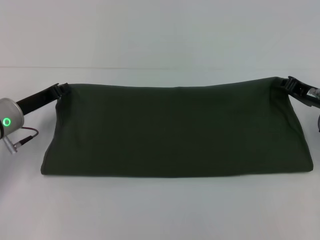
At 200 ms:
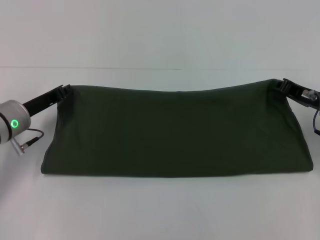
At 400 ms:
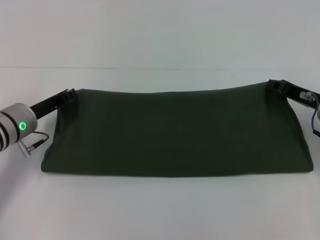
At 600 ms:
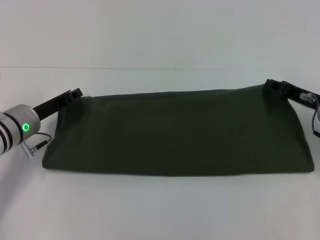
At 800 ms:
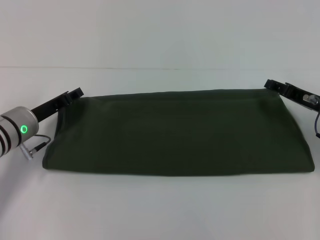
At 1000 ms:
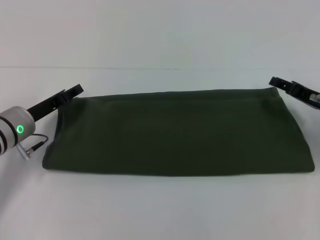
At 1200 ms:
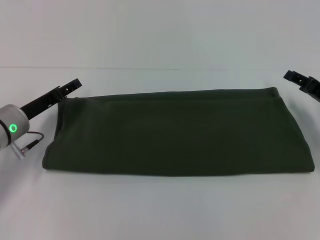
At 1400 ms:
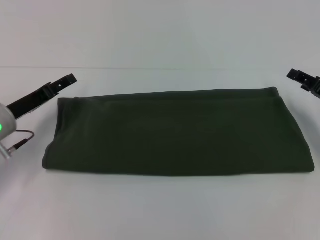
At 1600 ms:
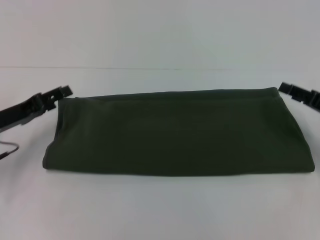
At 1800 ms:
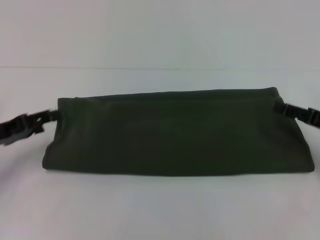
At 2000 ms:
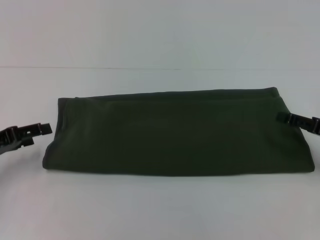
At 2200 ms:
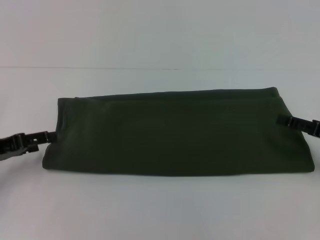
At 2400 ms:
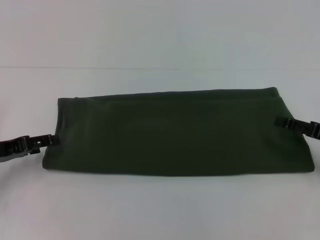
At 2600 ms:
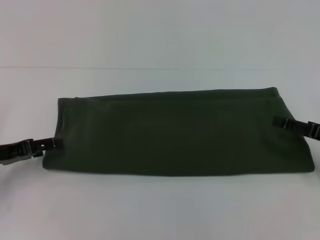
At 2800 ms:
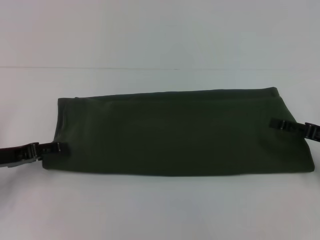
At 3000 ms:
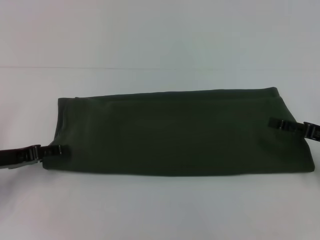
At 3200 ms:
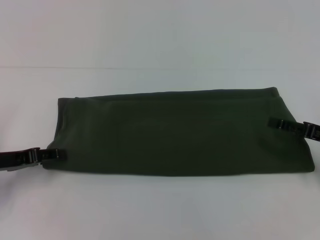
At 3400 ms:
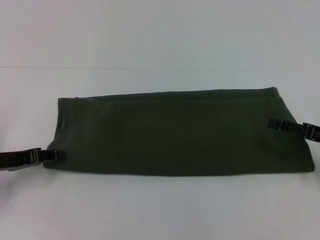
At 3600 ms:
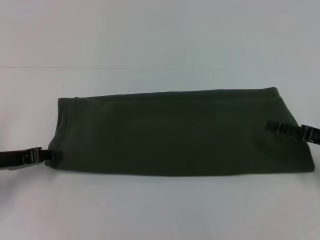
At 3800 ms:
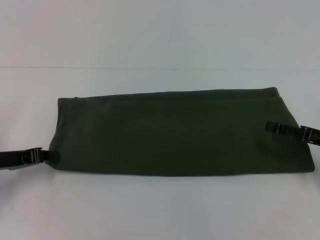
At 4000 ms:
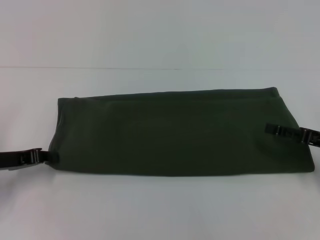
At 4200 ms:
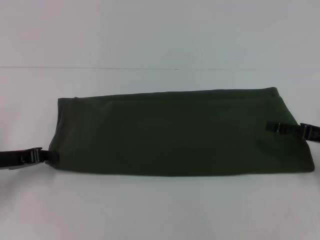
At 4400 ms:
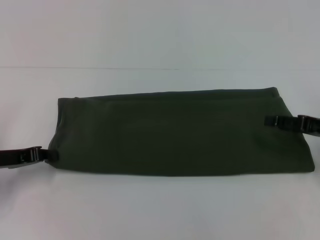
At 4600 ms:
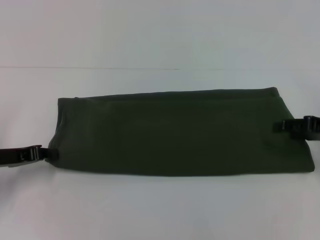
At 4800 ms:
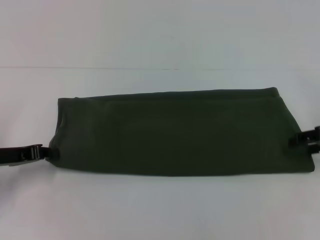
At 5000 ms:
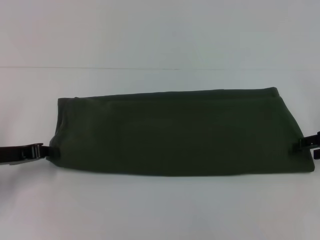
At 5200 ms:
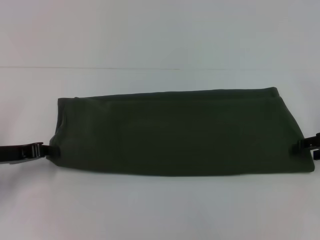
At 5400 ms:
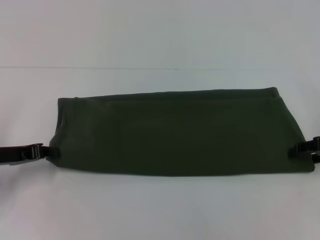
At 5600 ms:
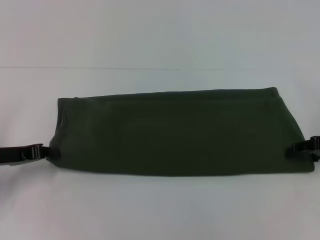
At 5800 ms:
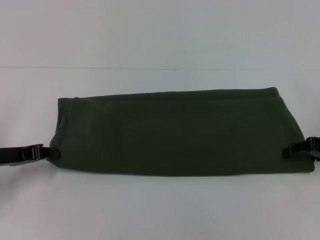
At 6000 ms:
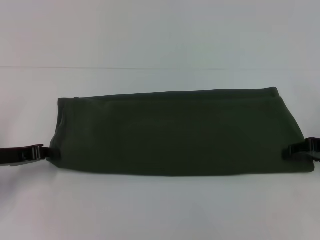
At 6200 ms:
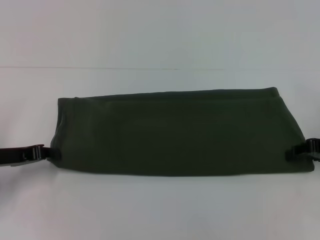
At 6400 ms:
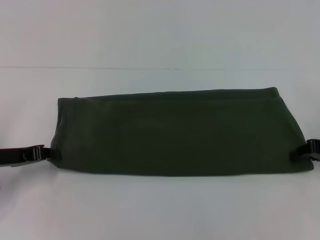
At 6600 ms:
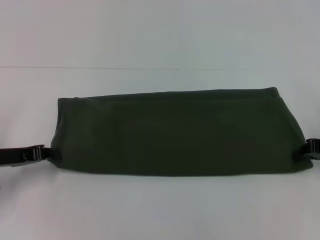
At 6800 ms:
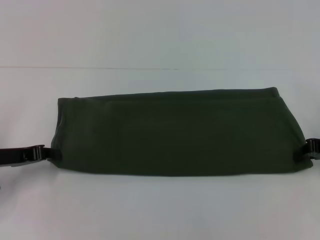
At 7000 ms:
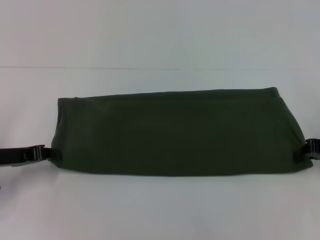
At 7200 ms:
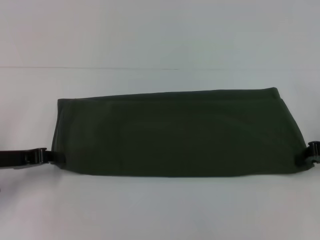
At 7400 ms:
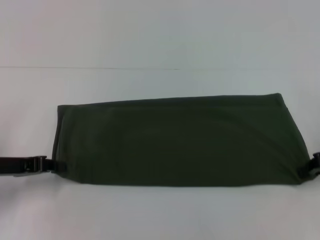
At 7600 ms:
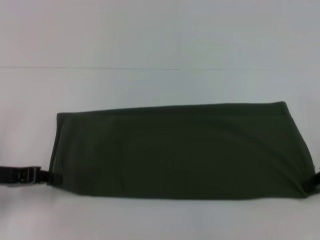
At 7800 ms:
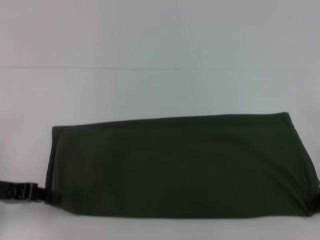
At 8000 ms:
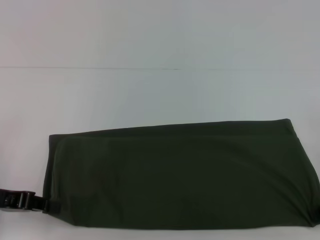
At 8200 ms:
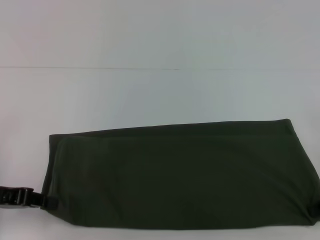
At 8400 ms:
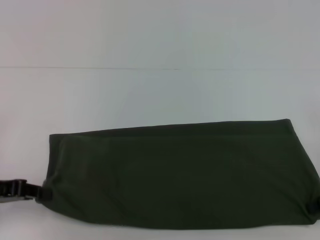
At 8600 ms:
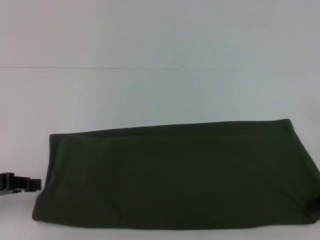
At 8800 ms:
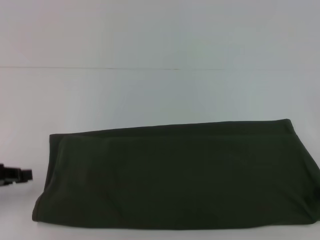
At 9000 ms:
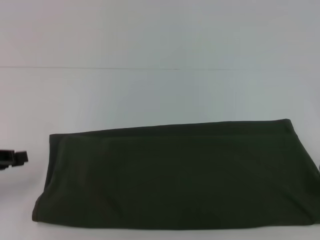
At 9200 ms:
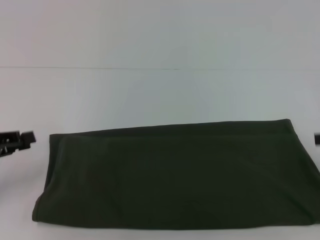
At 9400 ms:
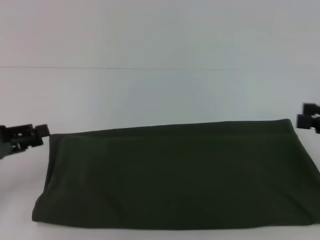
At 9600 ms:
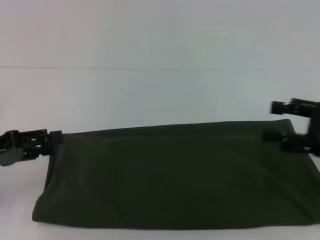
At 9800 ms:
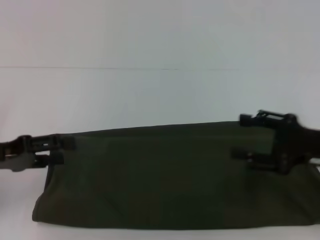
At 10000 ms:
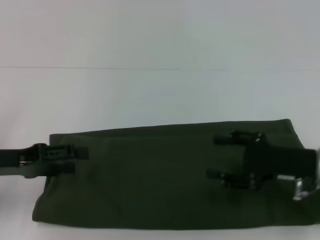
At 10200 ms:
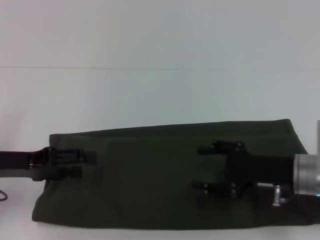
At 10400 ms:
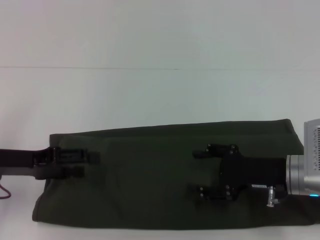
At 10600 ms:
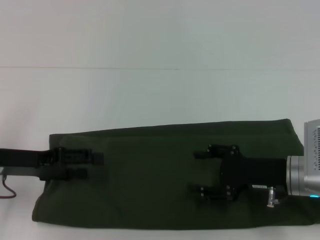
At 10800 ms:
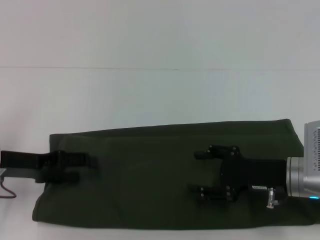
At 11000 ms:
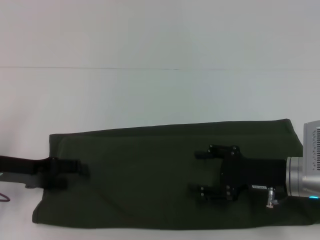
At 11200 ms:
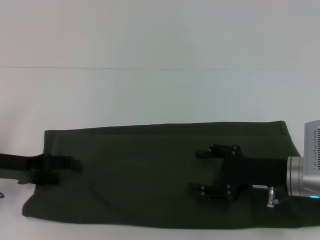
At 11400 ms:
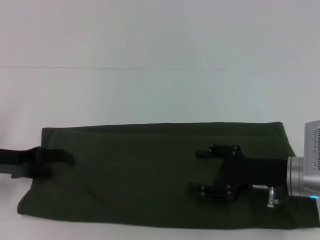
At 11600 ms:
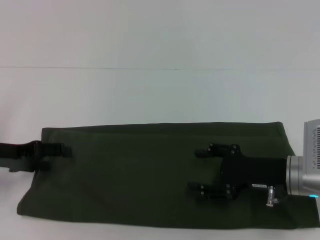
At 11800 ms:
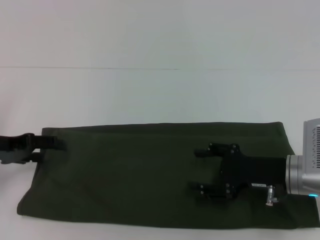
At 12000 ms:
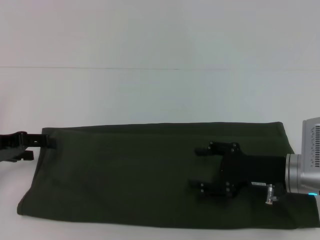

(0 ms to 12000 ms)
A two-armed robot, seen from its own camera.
Step, 1000 ms - 8800 ms: Pull the clothes with your left hand.
Step, 1000 ms - 8800 ms: Pull the clothes with your right hand.
0 ms - 1600 ms: The right gripper moves approximately 5 cm, and opens up. Meanwhile the left gripper ends up roughly 5 cm from where it was, and opens its fingers.
6000 ms - 7600 ms: The right gripper closes up.
7600 ms - 9000 ms: The right gripper shifts by roughly 5 cm, and opens. The left gripper changes place by some 5 cm.
9000 ms - 10400 ms: The left gripper heads to the right, covering roughly 5 cm, and opens up. Meanwhile the right gripper goes some 20 cm to the left and downward.
10400 ms - 12000 ms: The left gripper moves roughly 5 cm.

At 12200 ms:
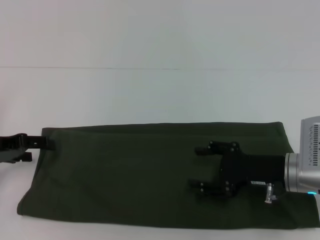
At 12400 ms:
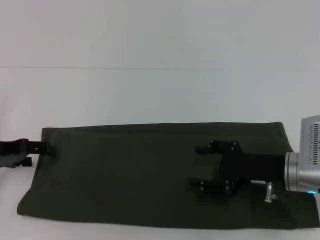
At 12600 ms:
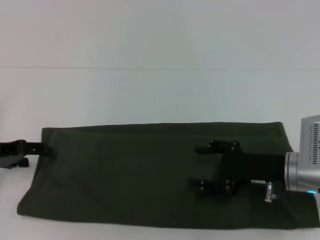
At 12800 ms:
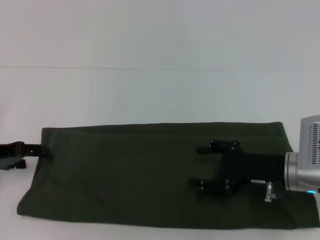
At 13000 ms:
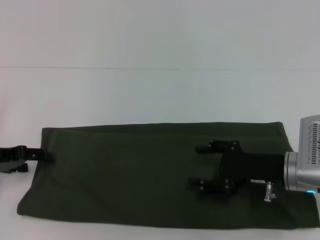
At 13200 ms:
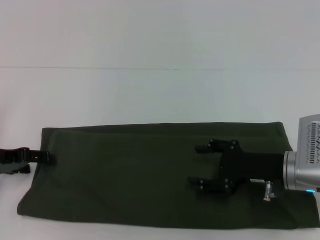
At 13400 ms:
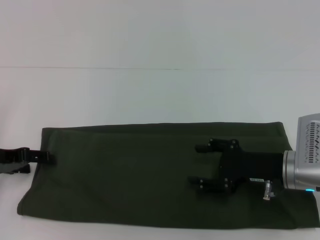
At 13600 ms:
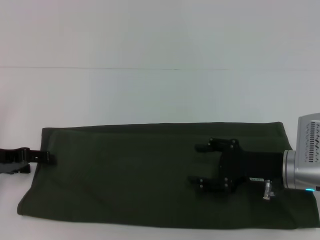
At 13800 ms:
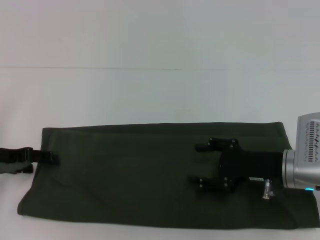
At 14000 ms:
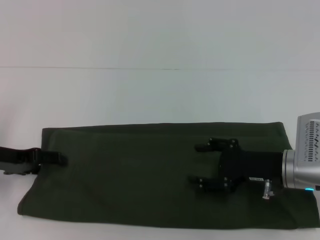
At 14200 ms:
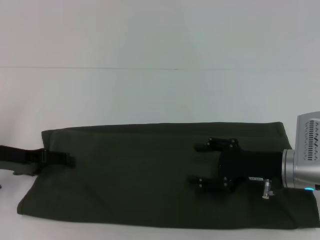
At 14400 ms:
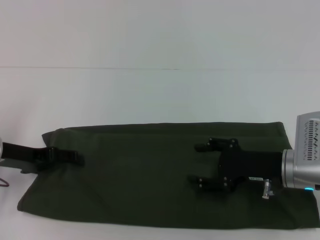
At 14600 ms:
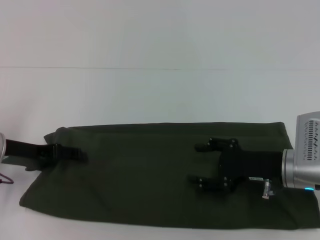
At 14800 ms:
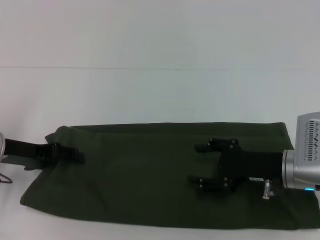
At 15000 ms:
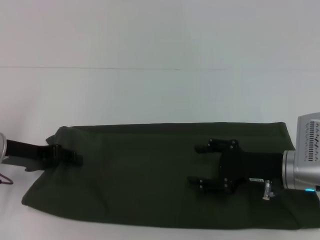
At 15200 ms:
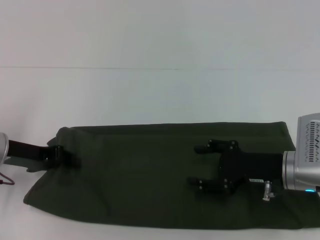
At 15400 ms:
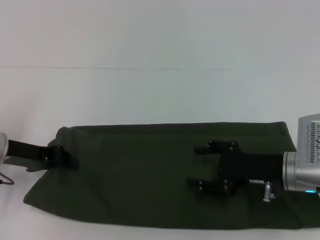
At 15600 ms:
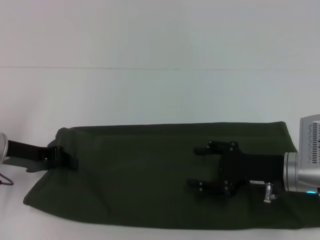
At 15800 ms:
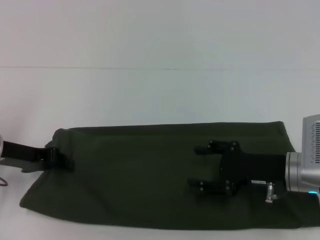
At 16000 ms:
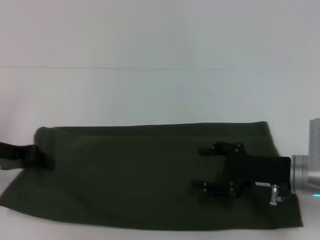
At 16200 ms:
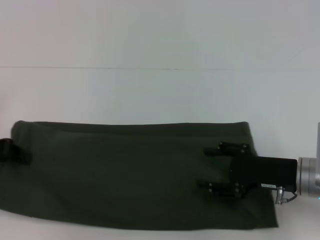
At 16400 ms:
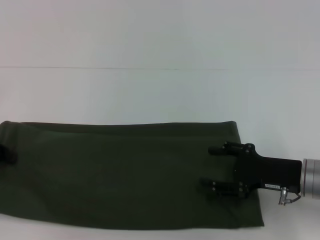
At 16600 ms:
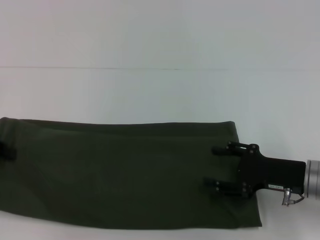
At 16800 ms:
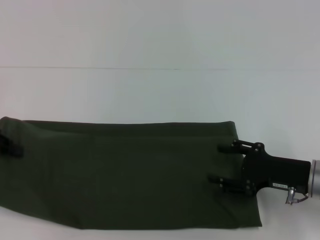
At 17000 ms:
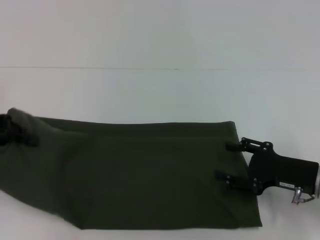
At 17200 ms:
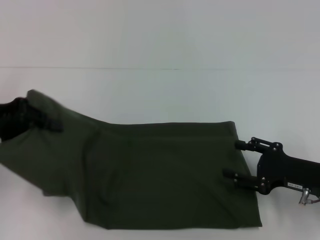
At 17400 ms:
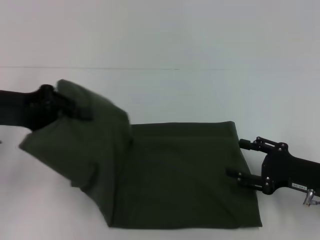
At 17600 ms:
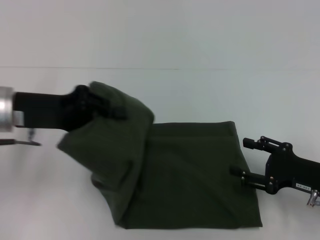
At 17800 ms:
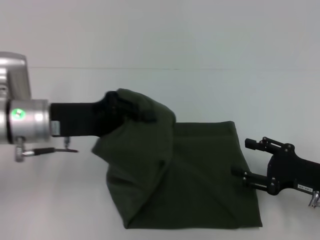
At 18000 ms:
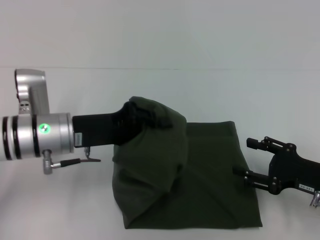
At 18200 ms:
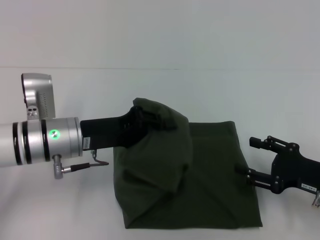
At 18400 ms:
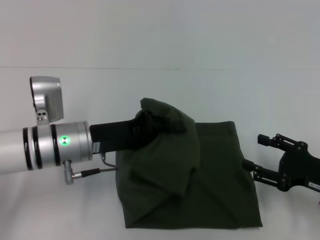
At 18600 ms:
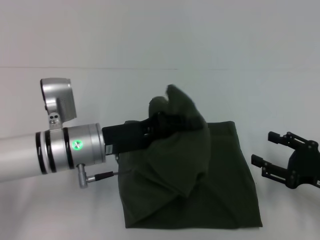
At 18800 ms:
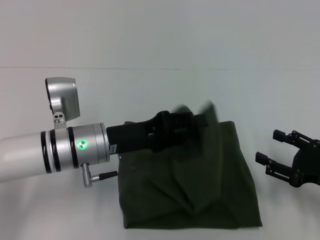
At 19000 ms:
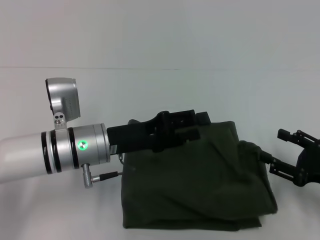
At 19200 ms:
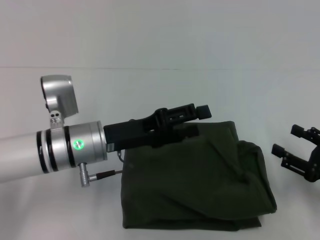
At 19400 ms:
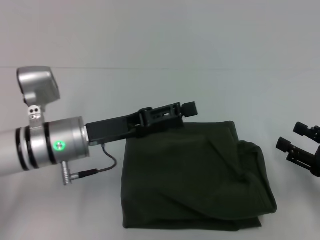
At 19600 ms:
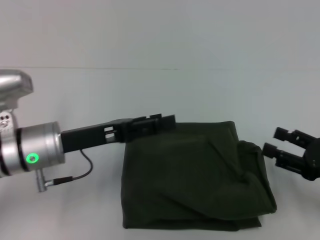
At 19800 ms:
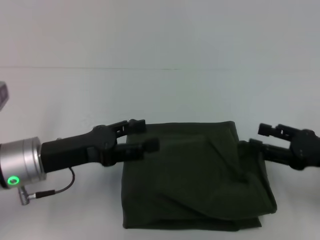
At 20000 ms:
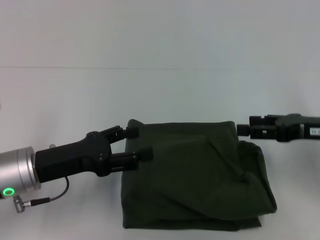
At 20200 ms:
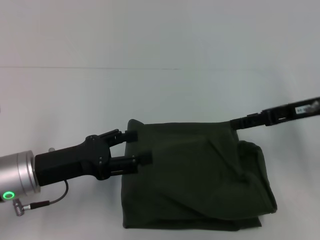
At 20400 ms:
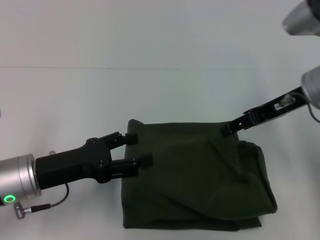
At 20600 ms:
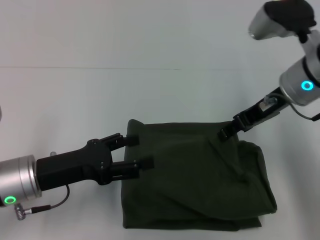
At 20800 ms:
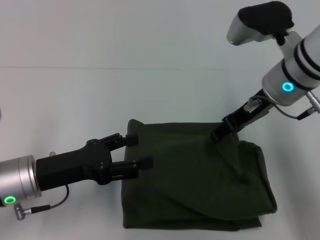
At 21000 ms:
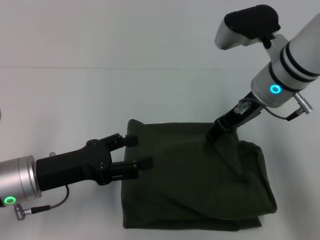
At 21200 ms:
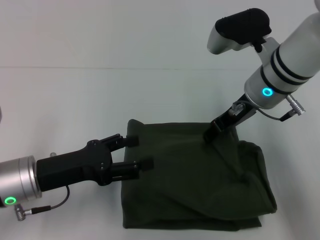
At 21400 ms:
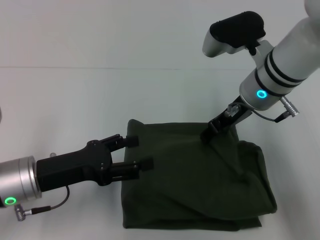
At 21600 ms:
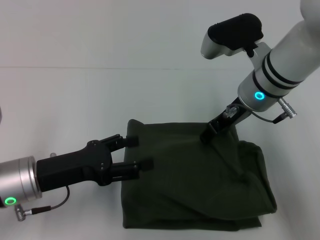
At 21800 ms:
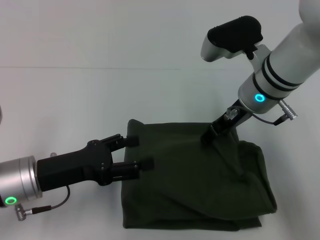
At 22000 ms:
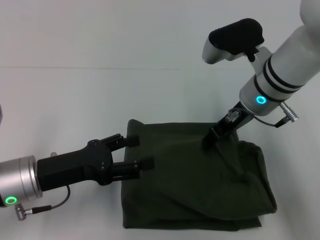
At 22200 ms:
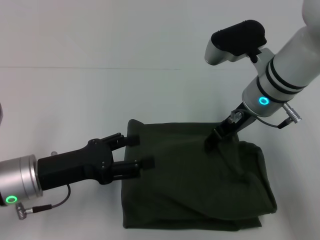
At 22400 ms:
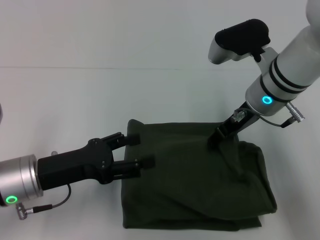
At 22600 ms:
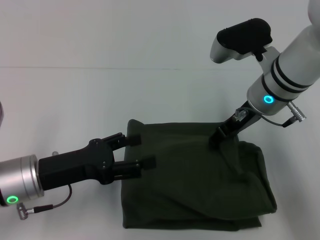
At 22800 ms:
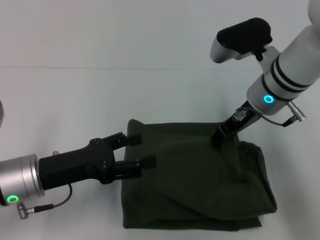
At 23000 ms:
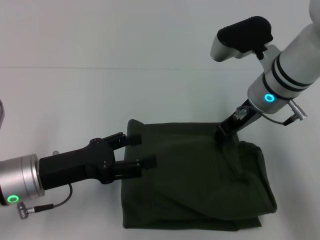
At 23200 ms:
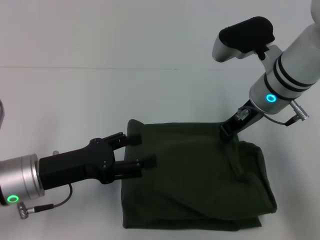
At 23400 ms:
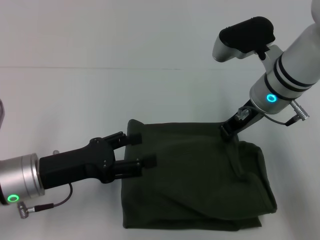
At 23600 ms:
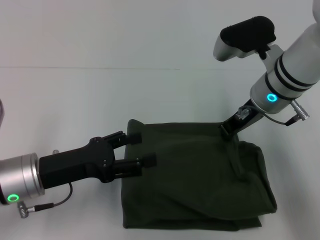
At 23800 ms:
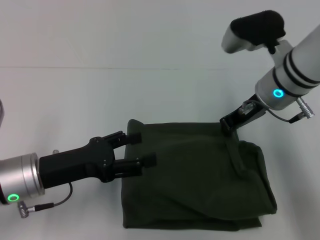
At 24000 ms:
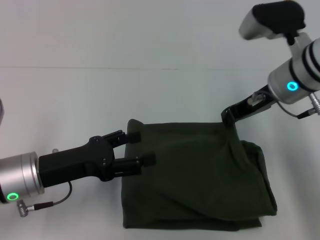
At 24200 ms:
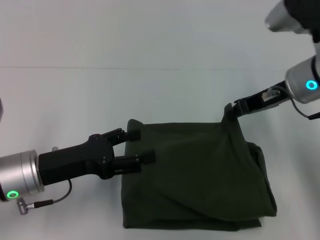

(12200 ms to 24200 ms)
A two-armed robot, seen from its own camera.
Step, 12200 ms - 19200 ms: Fold the clothes with your left hand.
12200 ms - 15200 ms: The grippers make only small movements.
15200 ms - 16600 ms: The left gripper is displaced to the left and upward by some 10 cm, and closes.
16600 ms - 18200 ms: The right gripper moves some 5 cm; the left gripper travels to the right by roughly 20 cm.
18200 ms - 19800 ms: The right gripper shifts by some 5 cm; the left gripper shifts by approximately 5 cm, and opens.
19800 ms - 21200 ms: The right gripper goes roughly 25 cm to the left, forward and upward.
21200 ms - 22600 ms: The grippers make only small movements.
22600 ms - 24200 ms: The right gripper is displaced to the right by some 5 cm, and closes.
